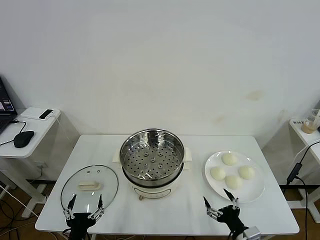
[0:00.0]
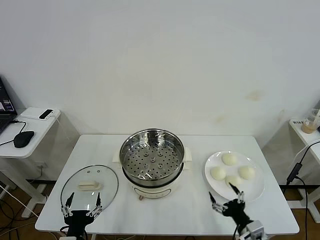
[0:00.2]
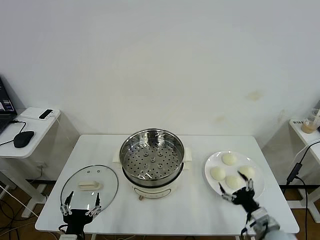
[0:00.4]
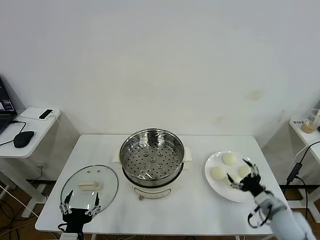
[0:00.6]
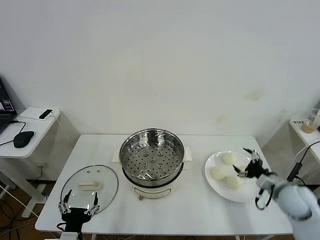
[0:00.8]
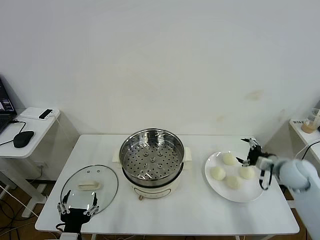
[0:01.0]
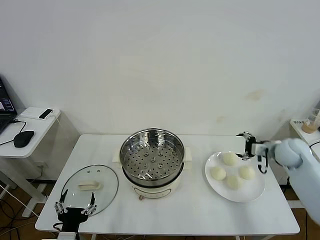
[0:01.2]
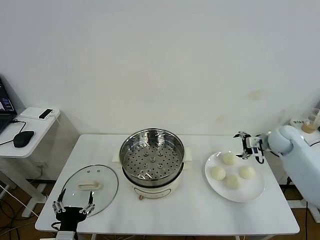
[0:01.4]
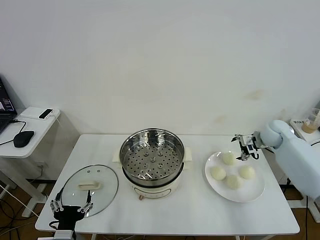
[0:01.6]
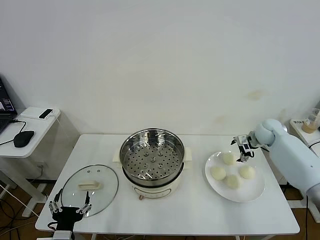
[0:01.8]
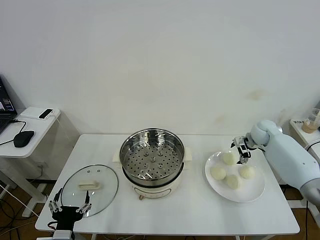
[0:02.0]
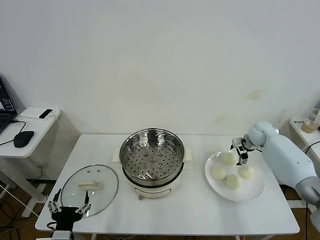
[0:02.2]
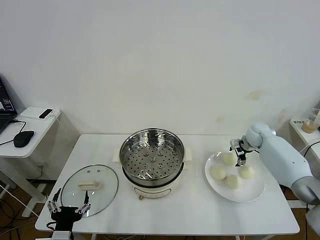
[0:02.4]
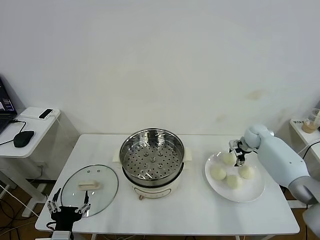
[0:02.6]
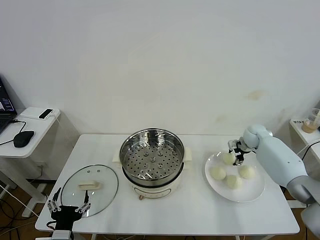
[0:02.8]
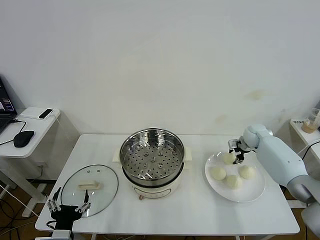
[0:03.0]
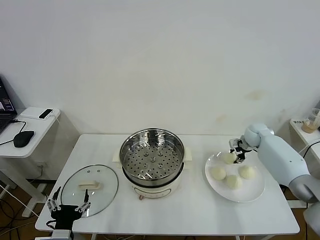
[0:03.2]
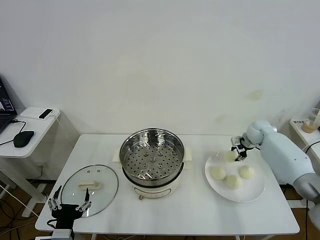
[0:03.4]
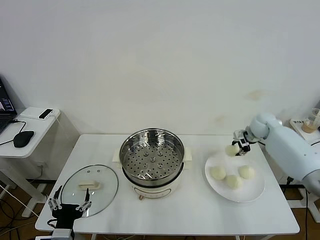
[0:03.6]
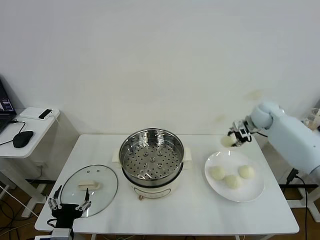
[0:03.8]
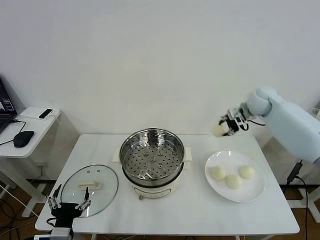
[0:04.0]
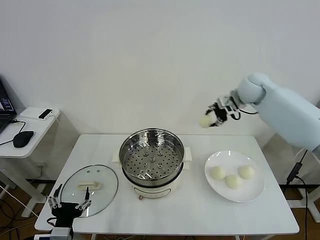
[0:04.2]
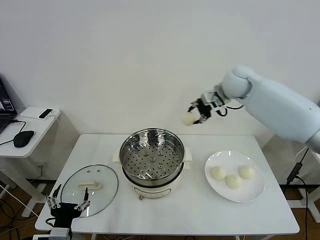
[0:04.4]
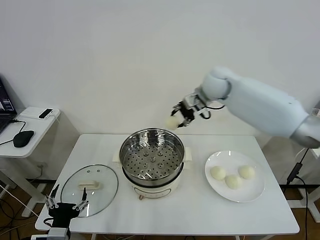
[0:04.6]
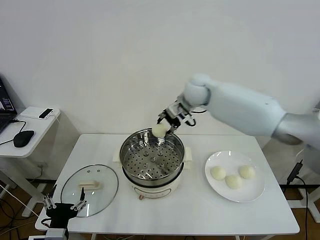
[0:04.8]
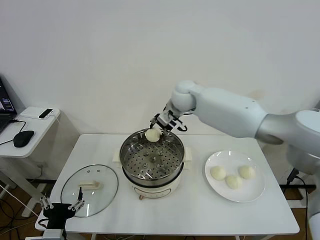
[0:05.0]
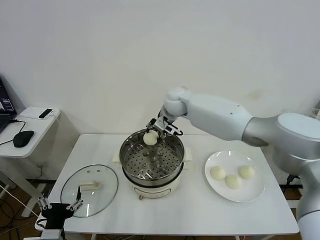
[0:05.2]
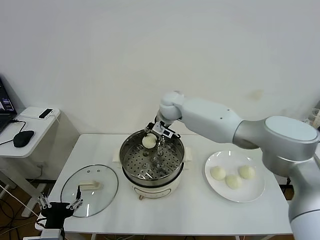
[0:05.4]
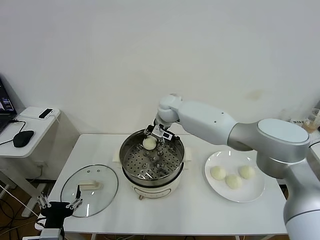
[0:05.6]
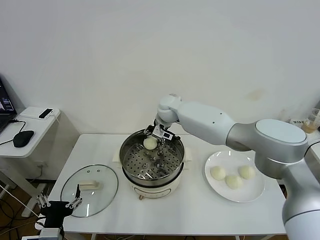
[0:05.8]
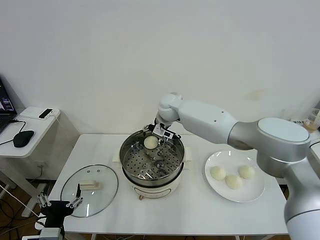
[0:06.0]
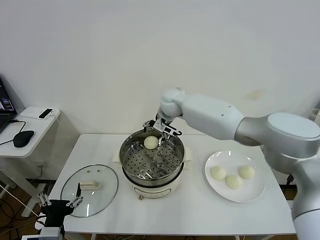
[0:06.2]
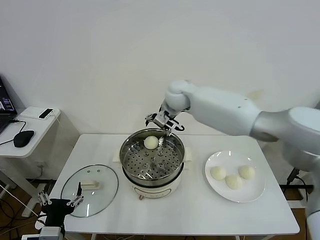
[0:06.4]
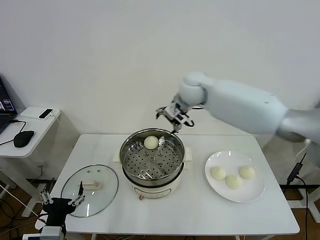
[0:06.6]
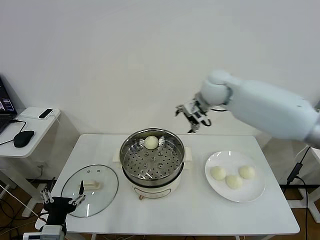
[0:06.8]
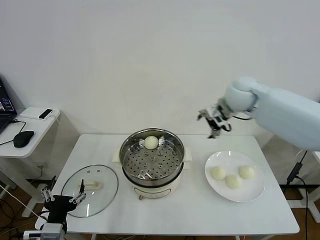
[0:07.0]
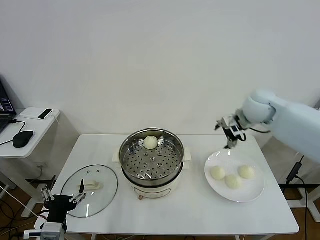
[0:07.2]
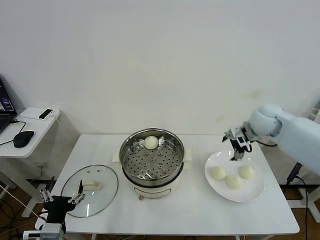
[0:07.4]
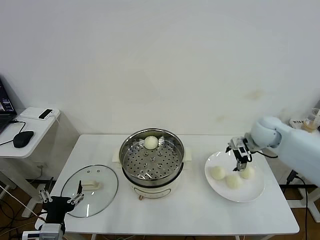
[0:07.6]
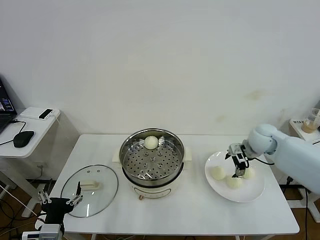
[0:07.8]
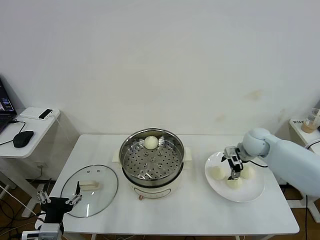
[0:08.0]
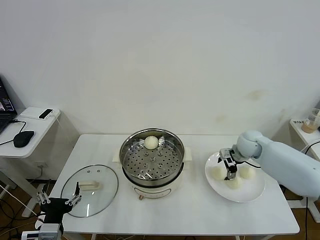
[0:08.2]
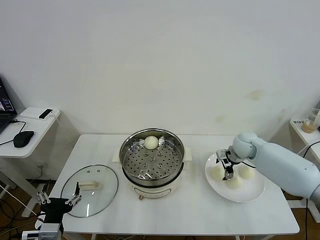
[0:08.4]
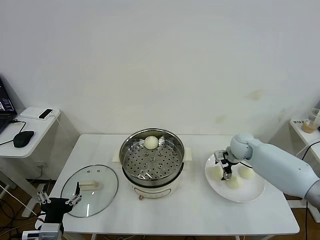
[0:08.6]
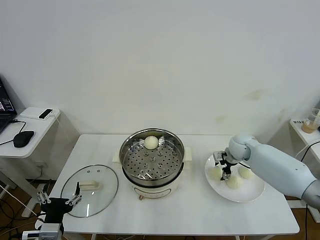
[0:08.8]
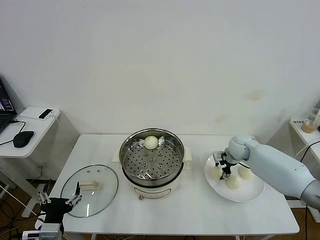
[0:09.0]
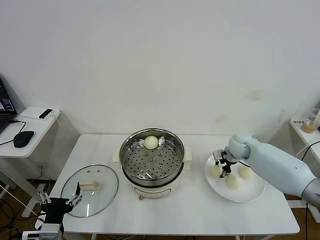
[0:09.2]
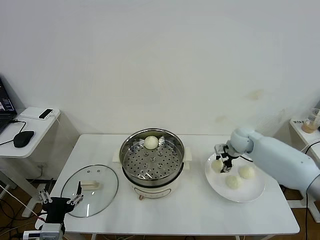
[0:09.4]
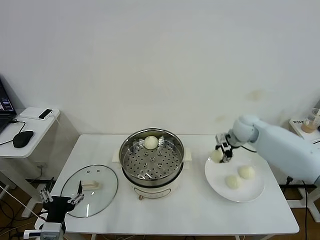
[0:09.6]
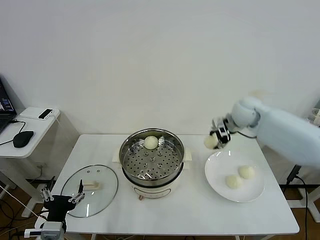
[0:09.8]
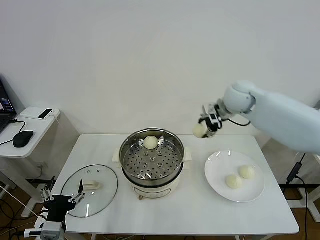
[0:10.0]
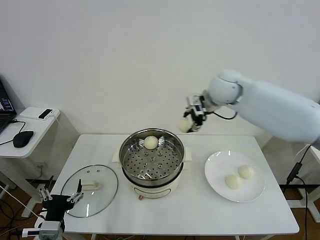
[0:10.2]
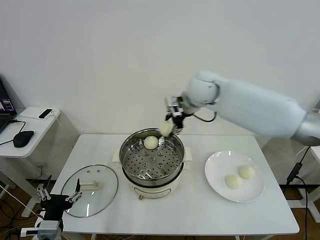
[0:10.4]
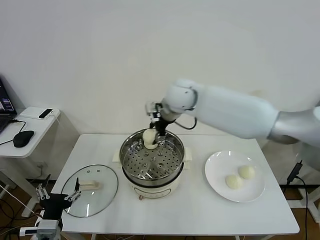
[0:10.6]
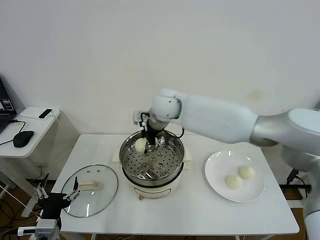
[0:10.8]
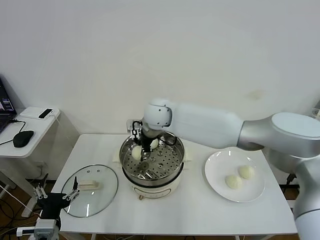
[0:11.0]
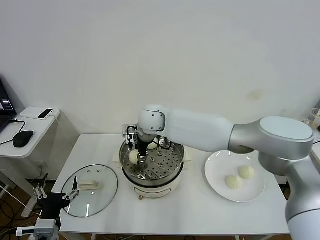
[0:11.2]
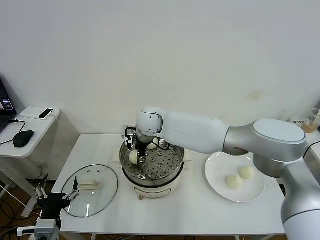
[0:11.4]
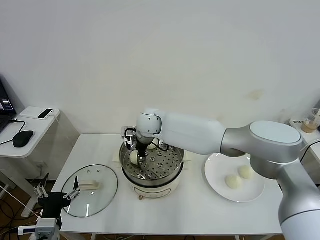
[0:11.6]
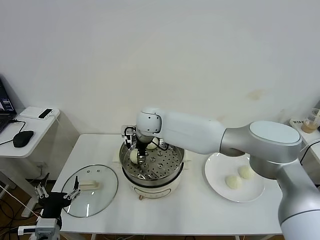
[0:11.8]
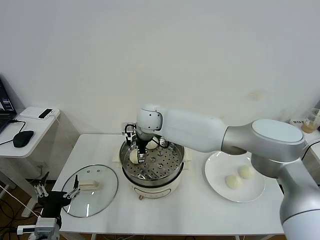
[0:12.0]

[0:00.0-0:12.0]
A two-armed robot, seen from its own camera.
Task of the whole recording: take steamed baozi put them in steamer then cover it.
Step, 0.0 to 3.0 s: Grasp the baozi in the plate with right gripper.
Step, 3.2 to 6.0 s: Place the baozi on the steamer with right gripper.
Step, 6.2 to 9.0 s: Grasp the baozi in the plate with right gripper.
Step, 9.2 to 12.0 s: Place the baozi on the steamer with right gripper.
1.6 to 3.0 s: The right gripper goes some 5 cm downward, and closes its fingers.
3.0 to 4.4 s: The right gripper is displaced upward and to the left by approximately 30 cm.
4.4 to 6.0 s: The right gripper shifts approximately 25 cm to the left and downward, and opens.
6.0 to 7.6 s: The right gripper moves to the right, some 30 cm.
7.6 to 9.0 s: The right gripper goes approximately 10 cm downward, and closes.
9.0 to 10.4 s: The right gripper moves upward and to the left, roughly 30 cm.
10.4 to 12.0 s: The right gripper heads to the left and downward, covering some 20 cm, and opens its fingers.

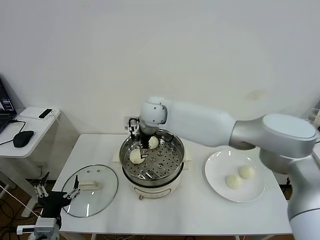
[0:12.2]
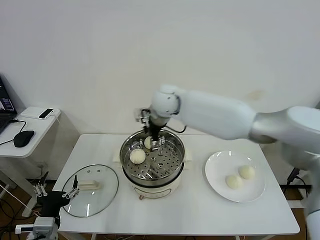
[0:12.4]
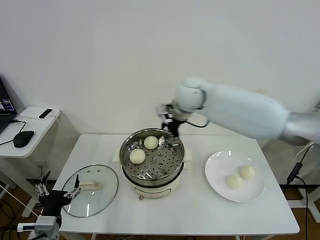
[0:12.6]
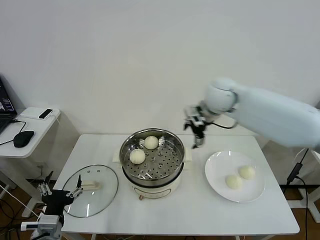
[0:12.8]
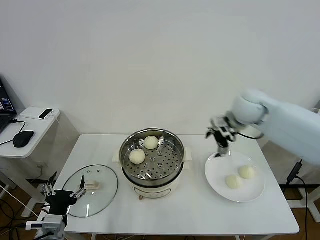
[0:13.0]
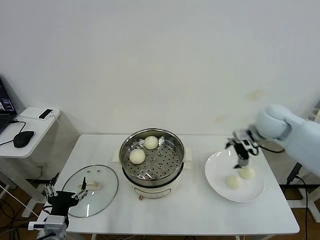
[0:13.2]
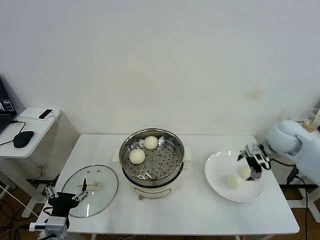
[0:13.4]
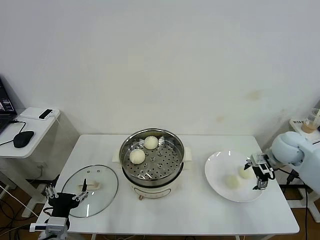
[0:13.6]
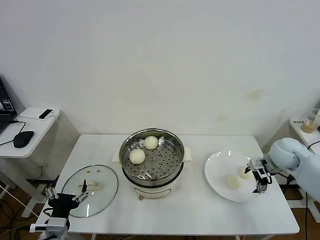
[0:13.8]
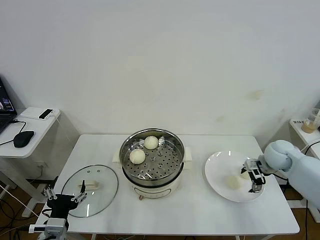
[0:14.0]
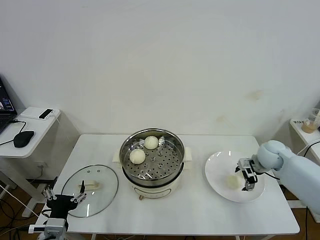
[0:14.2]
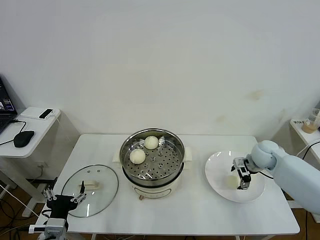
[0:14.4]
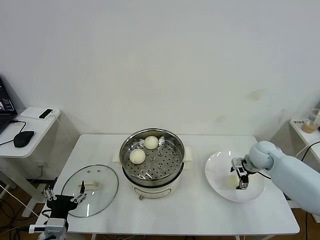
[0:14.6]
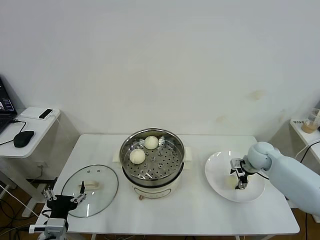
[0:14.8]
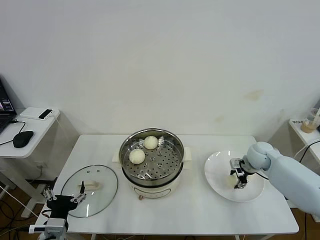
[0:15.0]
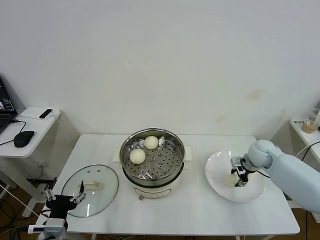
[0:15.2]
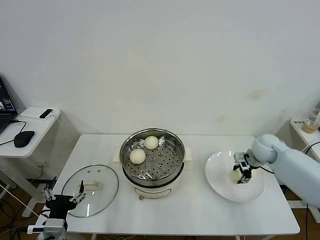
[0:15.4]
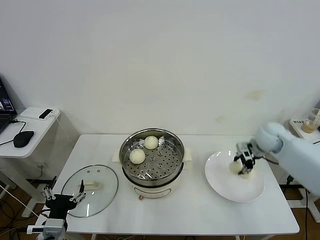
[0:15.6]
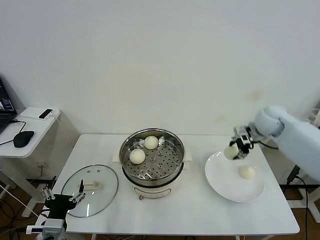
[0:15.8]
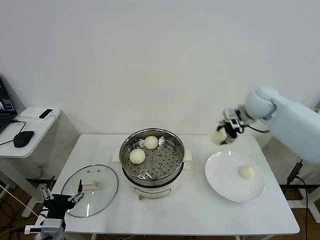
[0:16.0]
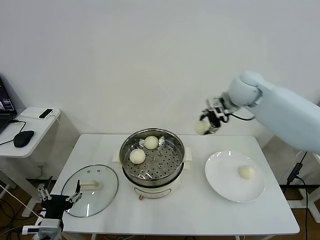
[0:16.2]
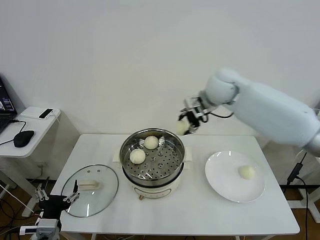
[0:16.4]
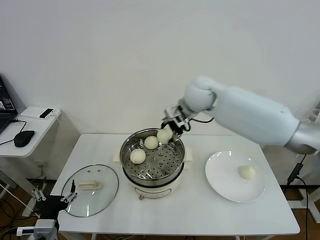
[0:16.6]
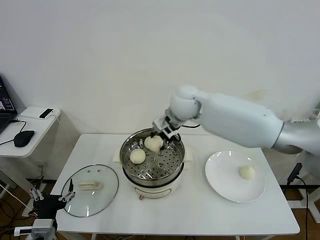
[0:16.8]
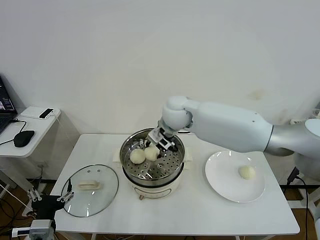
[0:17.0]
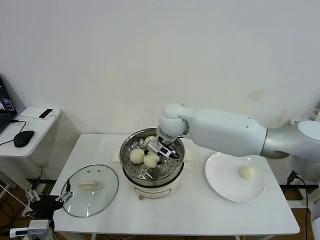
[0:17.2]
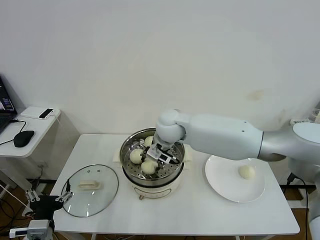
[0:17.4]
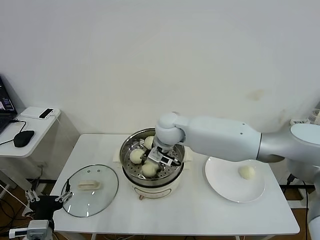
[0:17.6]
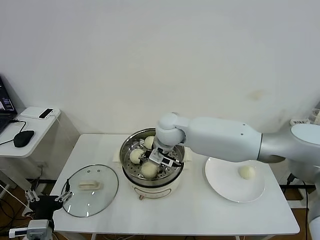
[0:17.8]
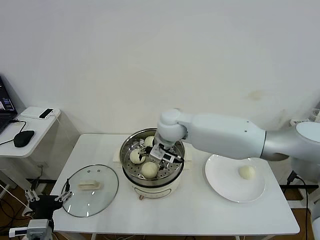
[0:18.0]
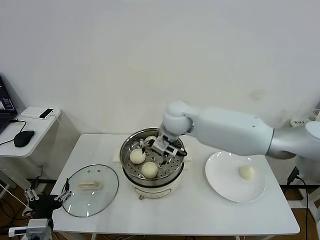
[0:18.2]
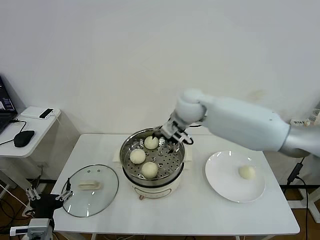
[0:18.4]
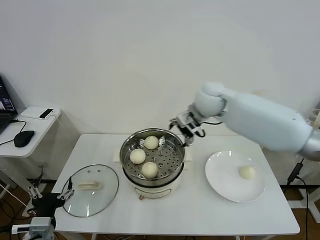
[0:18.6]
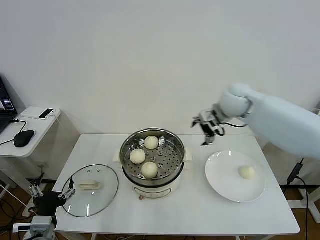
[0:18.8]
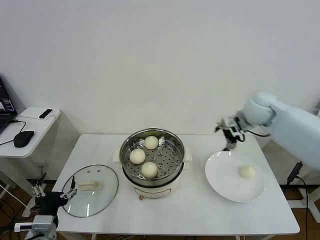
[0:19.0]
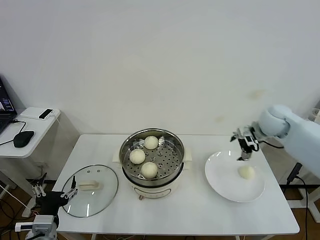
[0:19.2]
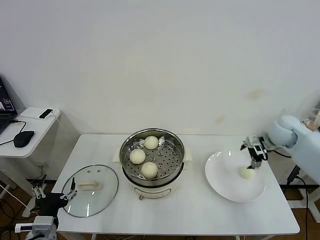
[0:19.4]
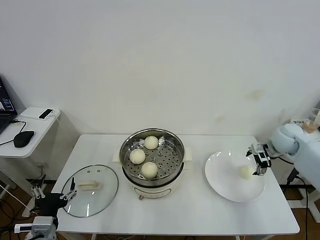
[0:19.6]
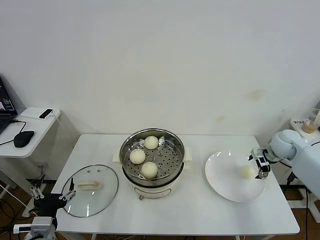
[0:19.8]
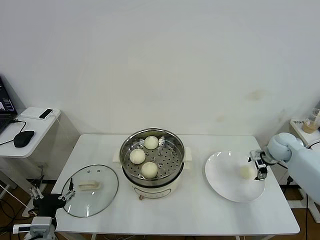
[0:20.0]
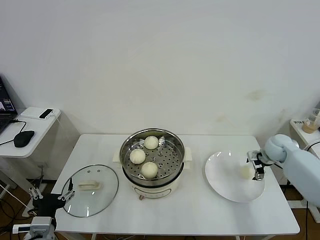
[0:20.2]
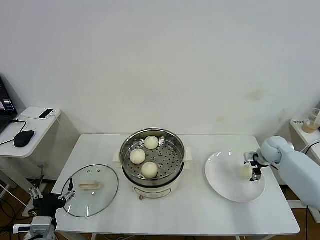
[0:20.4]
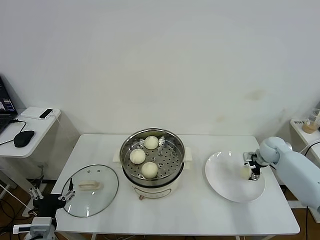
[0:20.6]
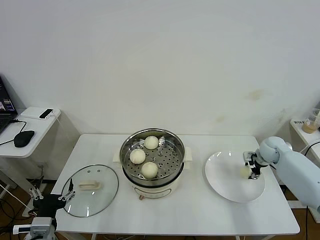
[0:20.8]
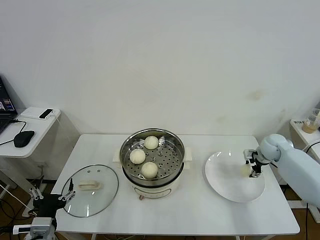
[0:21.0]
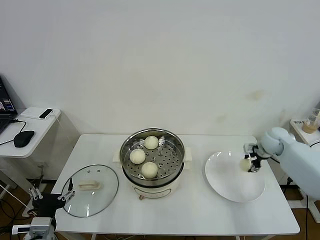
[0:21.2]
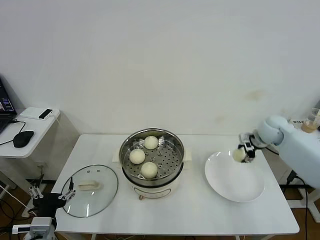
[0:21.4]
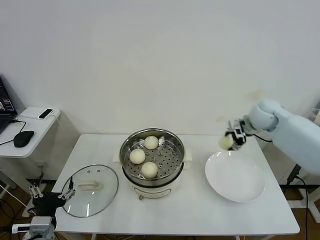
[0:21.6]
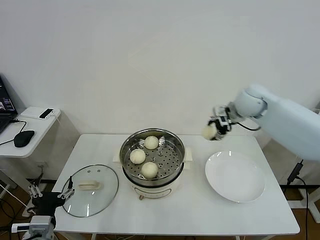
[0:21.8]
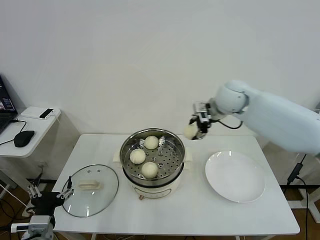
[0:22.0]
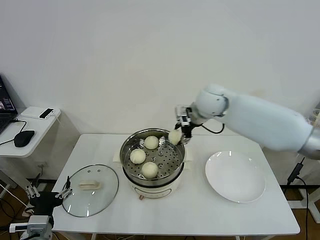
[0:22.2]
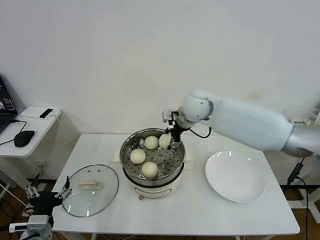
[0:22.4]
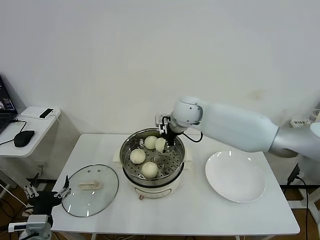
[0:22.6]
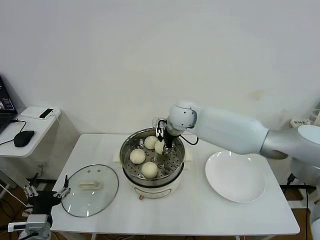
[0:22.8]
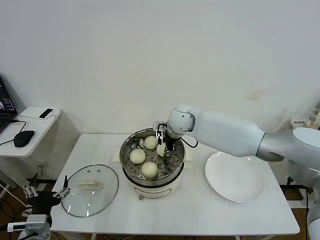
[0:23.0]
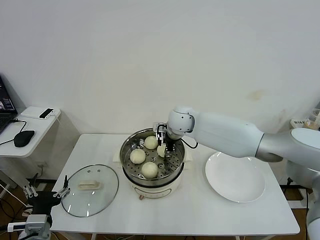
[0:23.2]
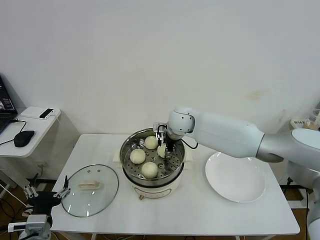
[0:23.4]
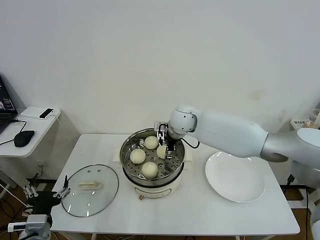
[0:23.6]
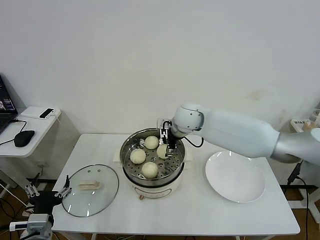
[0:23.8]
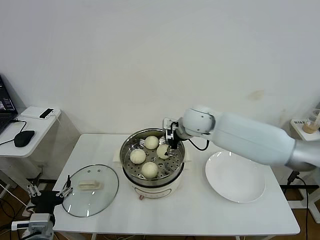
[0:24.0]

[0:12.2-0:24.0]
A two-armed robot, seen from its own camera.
Task of the whole recording: take steamed baozi put them in steamer then cover it.
Step, 12.2 to 15.2 s: Grasp the baozi in the plate with right gripper.
Step, 15.4 to 18.0 s: Place the baozi on the steamer with right gripper.
Step, 18.2 to 20.8 s: Grasp the baozi in the plate with right gripper.
Step, 21.0 to 23.6 s: Place the baozi on the steamer with right gripper.
12.2 to 13.6 s: The right gripper is displaced to the right by about 40 cm.
13.6 to 15.2 s: The right gripper moves downward, some 10 cm, and closes.
15.2 to 16.6 s: The right gripper moves to the left and upward, about 35 cm.
16.6 to 18.2 s: The right gripper moves to the left and downward, approximately 10 cm, and opens its fingers.
18.2 to 19.6 s: The right gripper goes roughly 40 cm to the right.
19.6 to 21.0 s: The right gripper shifts roughly 10 cm downward, and closes up.
21.0 to 22.6 s: The right gripper is displaced to the left and upward by about 40 cm.
22.6 to 24.0 s: The right gripper opens its fingers.
